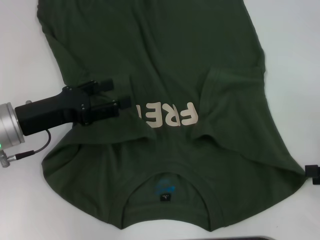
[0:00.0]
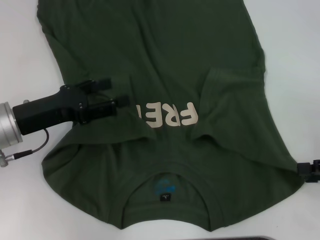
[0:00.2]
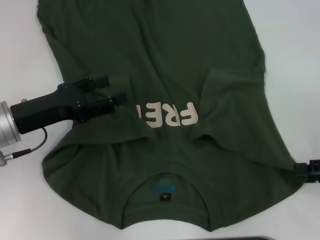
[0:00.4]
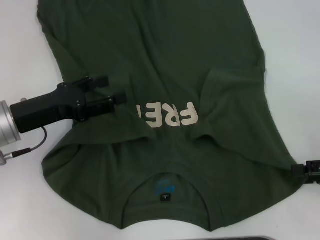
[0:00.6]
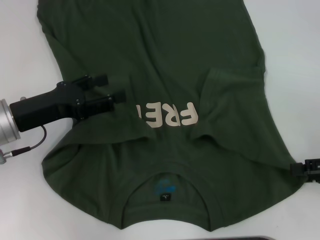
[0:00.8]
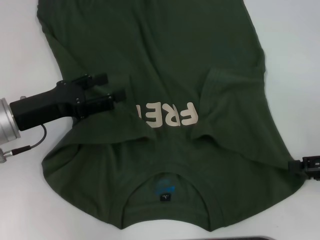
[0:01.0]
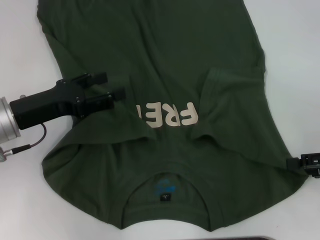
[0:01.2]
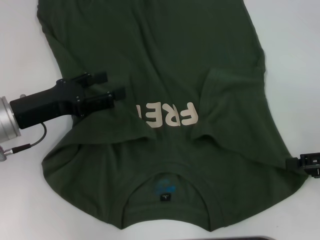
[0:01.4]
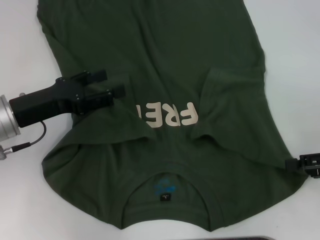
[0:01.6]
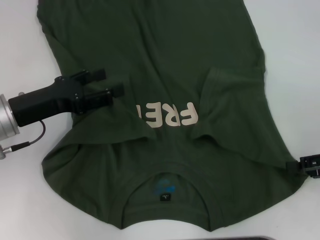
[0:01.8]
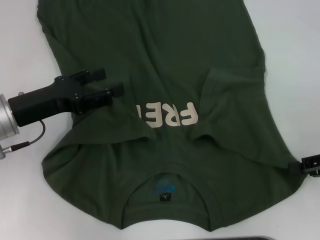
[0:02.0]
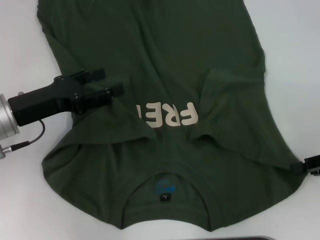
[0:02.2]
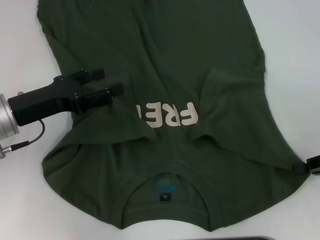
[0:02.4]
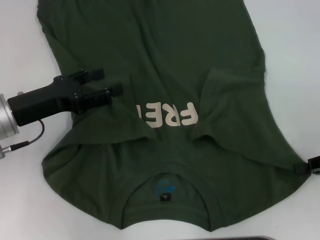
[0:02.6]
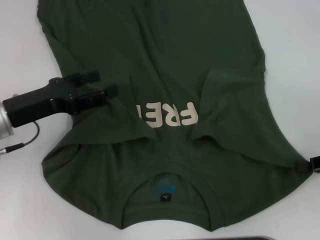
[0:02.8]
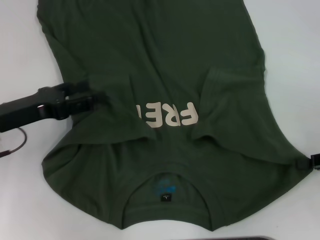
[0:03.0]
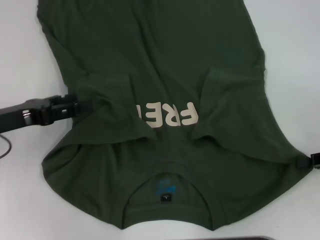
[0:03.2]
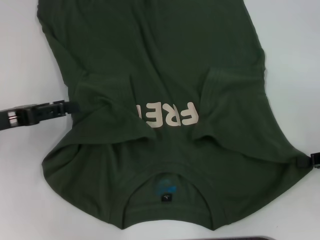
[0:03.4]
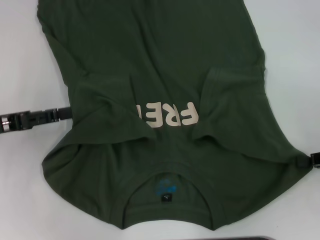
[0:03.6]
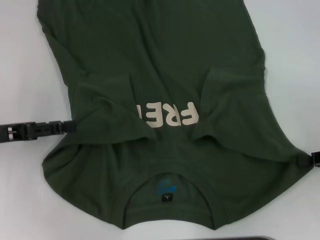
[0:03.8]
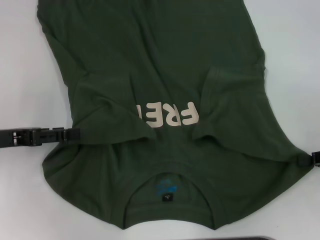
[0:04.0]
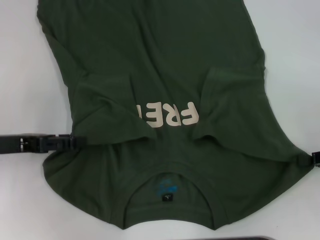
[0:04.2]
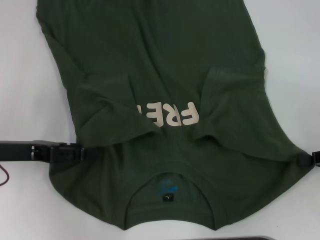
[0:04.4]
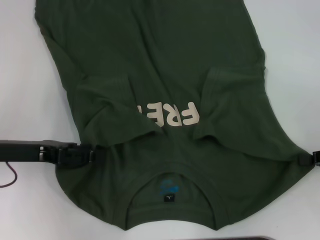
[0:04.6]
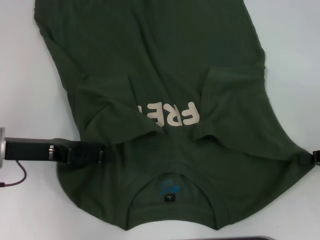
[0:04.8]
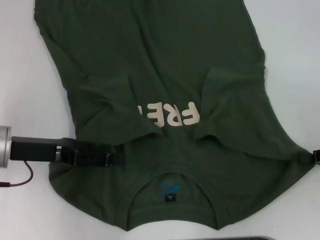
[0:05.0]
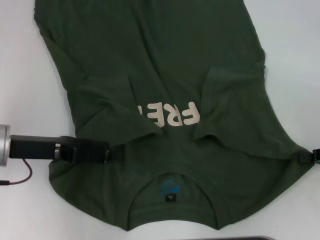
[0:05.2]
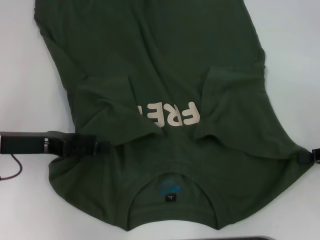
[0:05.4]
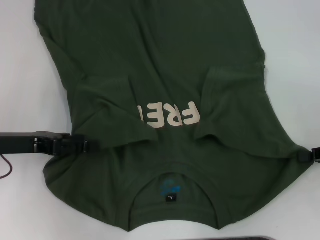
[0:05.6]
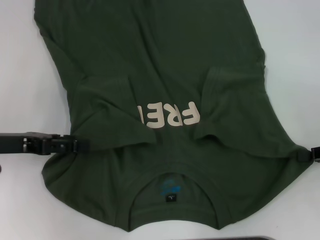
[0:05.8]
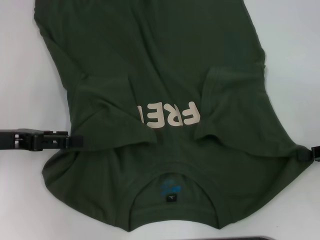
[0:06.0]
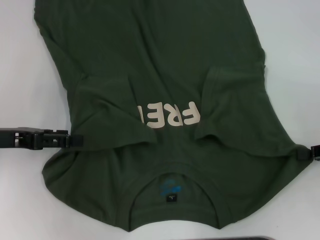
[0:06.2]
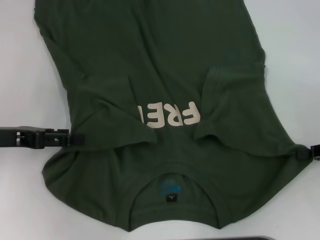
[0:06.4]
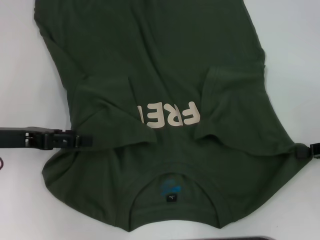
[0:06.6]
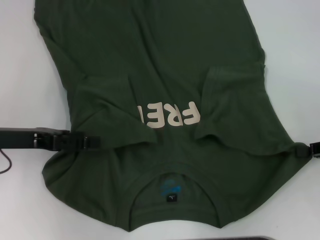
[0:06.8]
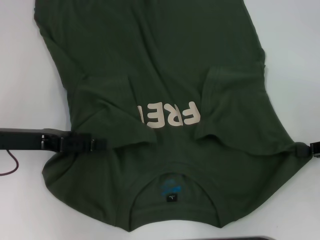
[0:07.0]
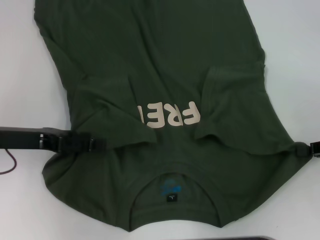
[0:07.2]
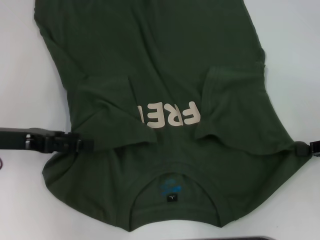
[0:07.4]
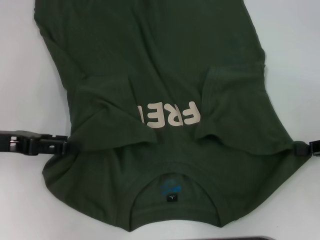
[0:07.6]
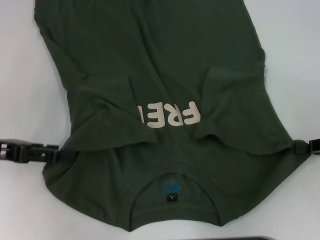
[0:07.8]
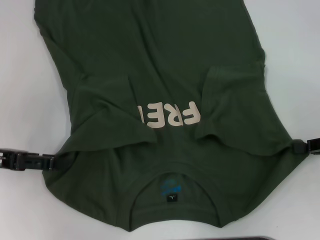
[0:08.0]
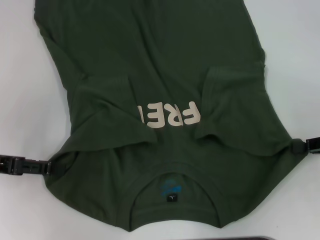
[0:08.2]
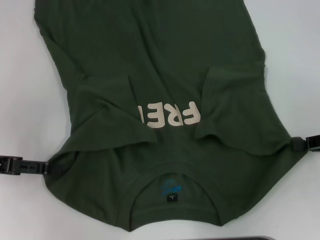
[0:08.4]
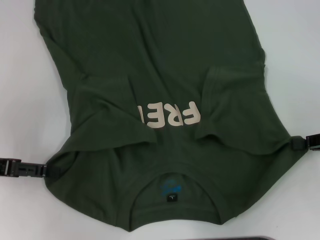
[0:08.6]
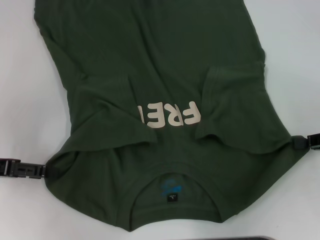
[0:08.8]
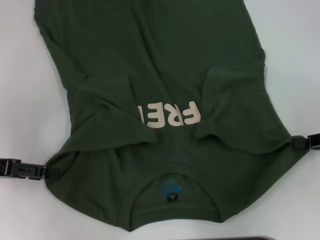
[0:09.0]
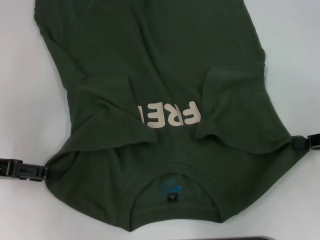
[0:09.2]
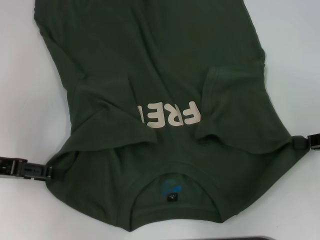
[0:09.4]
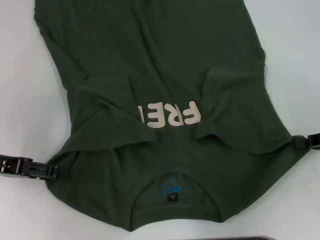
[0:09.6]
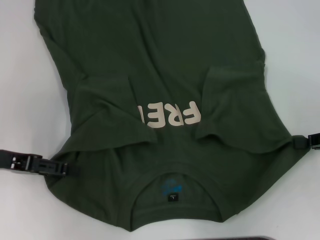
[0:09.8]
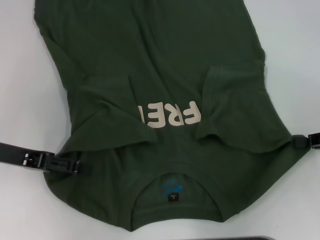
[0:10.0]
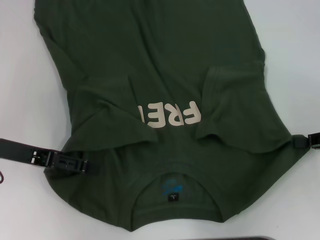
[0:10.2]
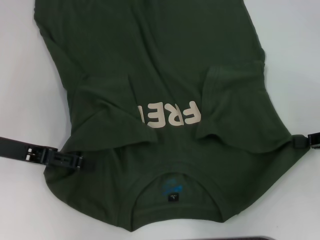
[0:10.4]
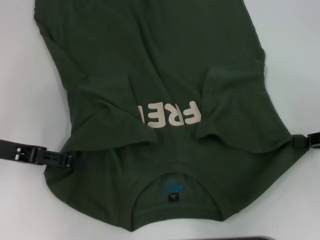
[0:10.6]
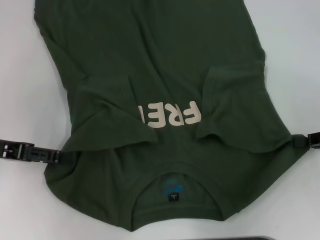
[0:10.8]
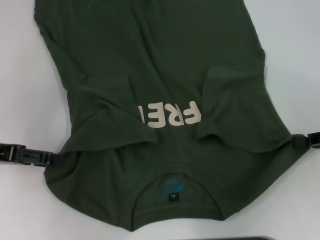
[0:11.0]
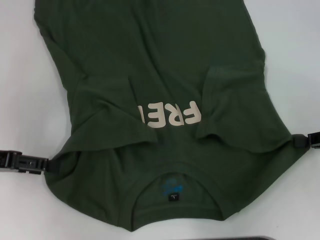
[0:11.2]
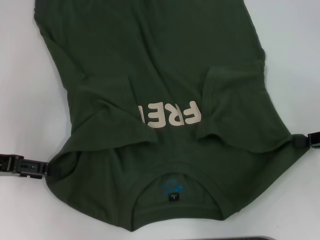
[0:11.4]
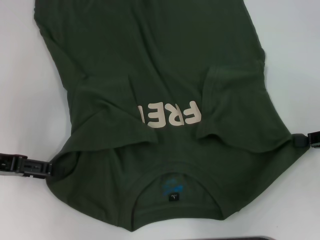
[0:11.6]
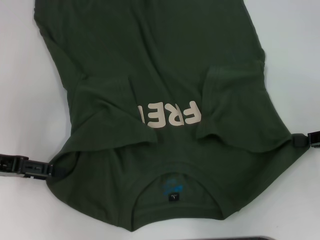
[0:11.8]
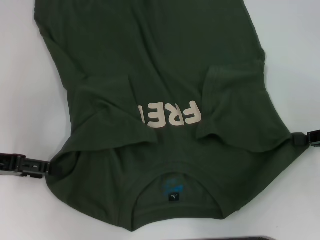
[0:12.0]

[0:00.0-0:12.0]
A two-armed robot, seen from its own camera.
Step, 0:00.0 to 0:02.4: Grab the bottom right corner with your right hand.
0:00.0 to 0:01.6: The grippers stay close to where they were, moving slightly.
0:01.6 to 0:03.0: The right gripper closes its fingers.
0:04.4 to 0:09.0: There are only small adjustments of the grippers.
0:09.0 to 0:10.4: The left gripper moves approximately 5 cm.
0:10.4 to 0:12.0: The grippers stay close to where they were, moving slightly.

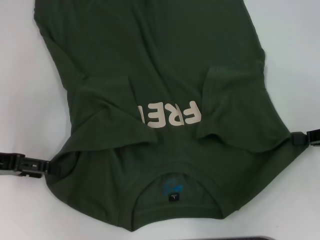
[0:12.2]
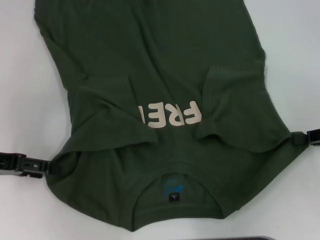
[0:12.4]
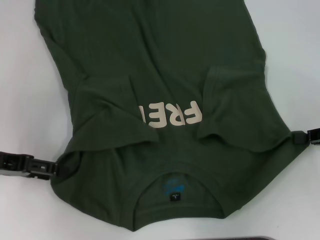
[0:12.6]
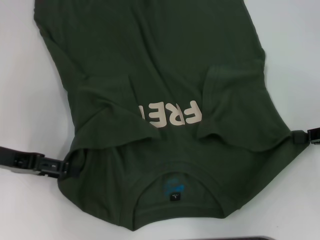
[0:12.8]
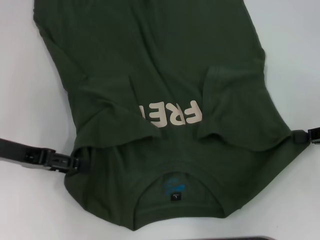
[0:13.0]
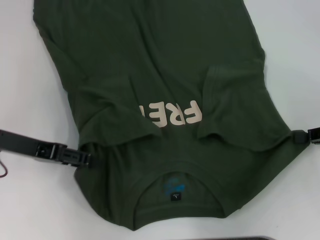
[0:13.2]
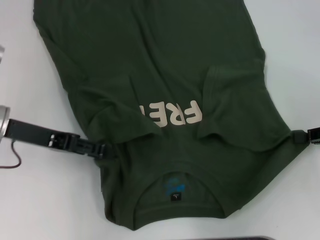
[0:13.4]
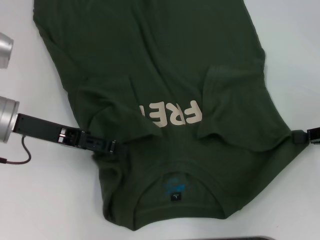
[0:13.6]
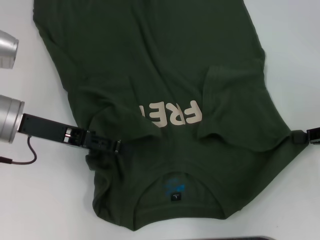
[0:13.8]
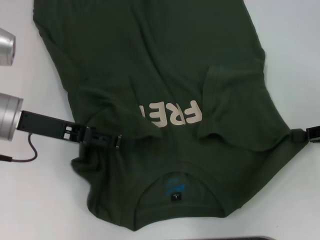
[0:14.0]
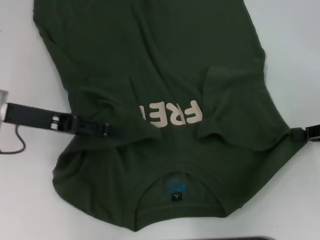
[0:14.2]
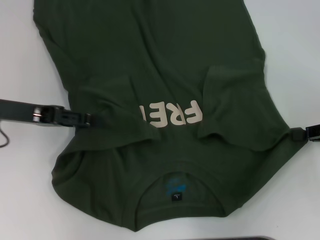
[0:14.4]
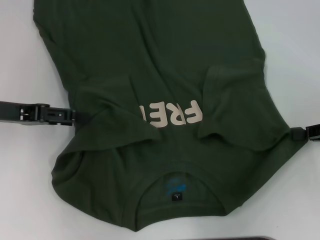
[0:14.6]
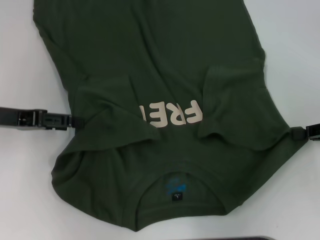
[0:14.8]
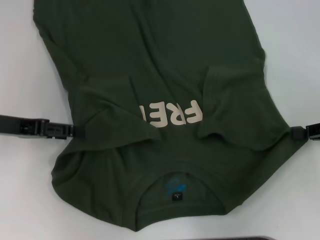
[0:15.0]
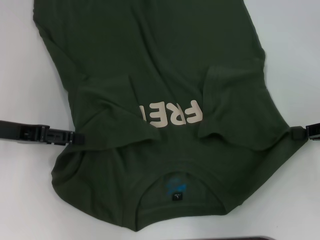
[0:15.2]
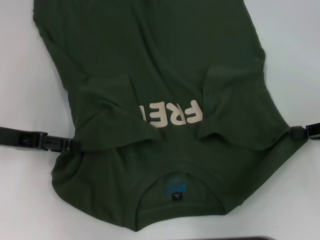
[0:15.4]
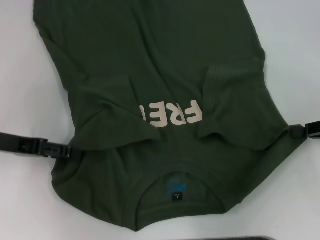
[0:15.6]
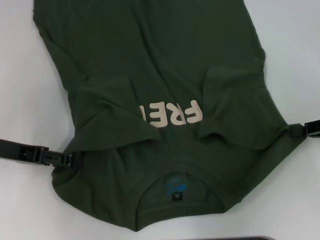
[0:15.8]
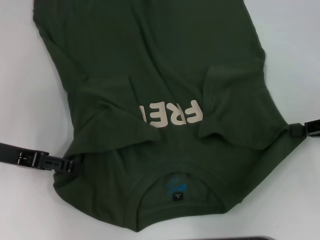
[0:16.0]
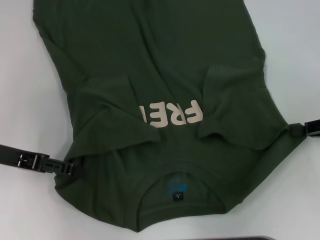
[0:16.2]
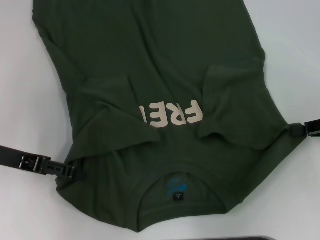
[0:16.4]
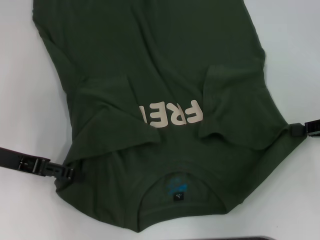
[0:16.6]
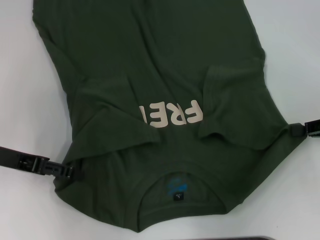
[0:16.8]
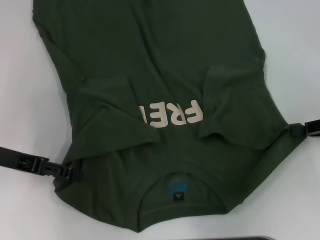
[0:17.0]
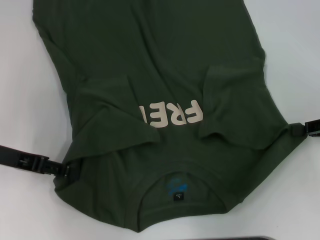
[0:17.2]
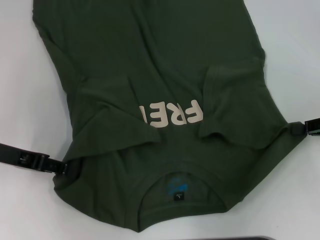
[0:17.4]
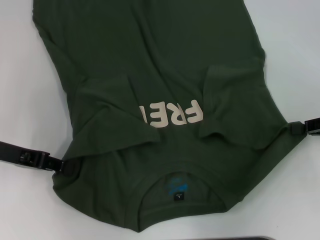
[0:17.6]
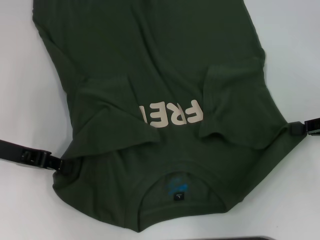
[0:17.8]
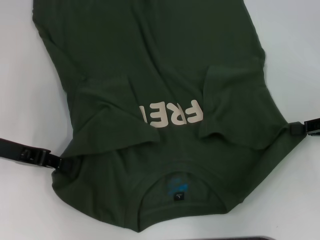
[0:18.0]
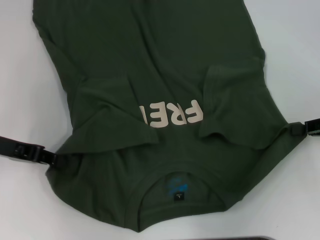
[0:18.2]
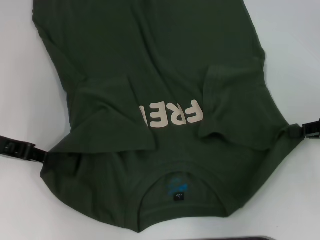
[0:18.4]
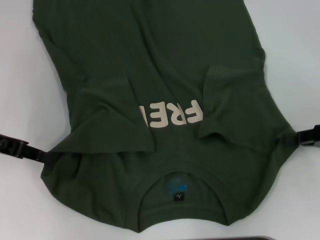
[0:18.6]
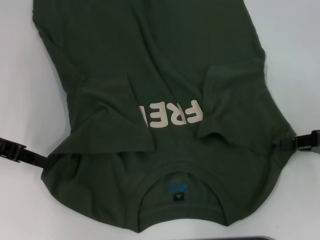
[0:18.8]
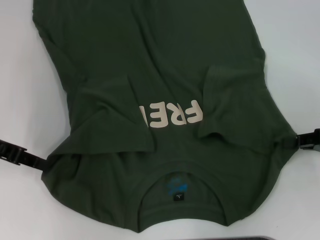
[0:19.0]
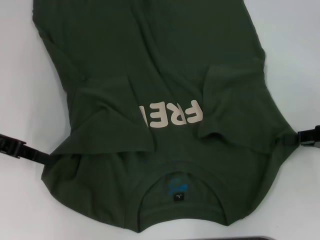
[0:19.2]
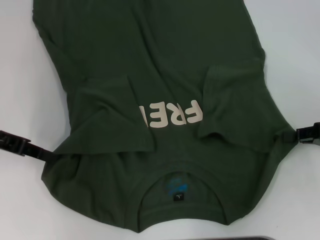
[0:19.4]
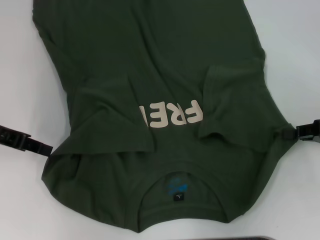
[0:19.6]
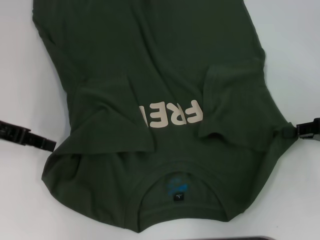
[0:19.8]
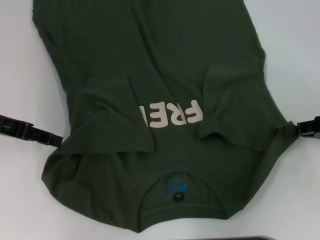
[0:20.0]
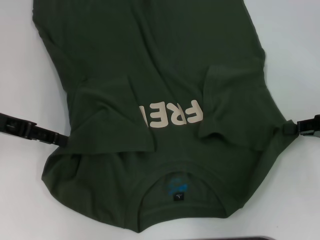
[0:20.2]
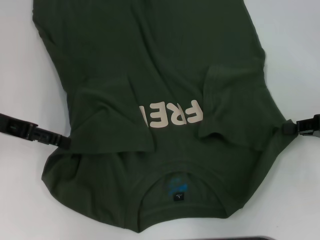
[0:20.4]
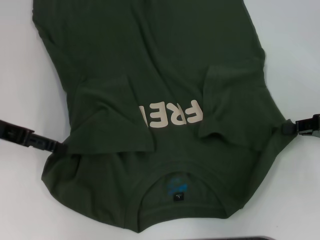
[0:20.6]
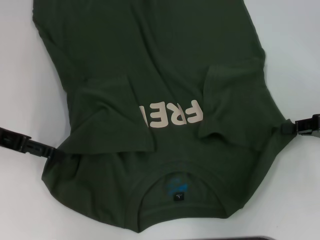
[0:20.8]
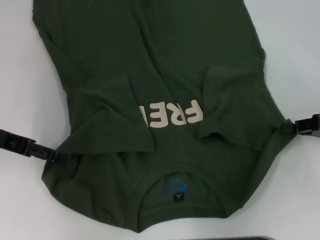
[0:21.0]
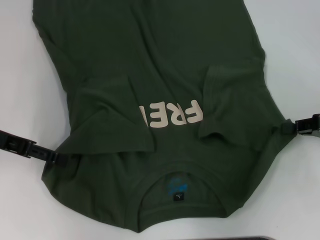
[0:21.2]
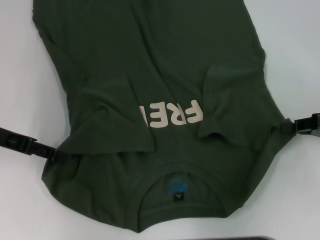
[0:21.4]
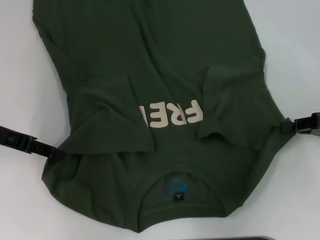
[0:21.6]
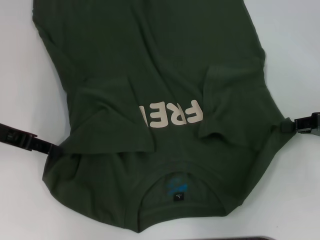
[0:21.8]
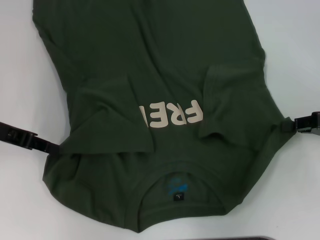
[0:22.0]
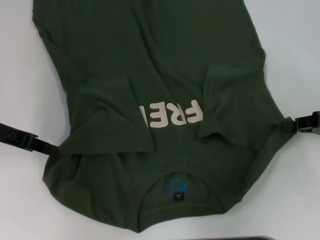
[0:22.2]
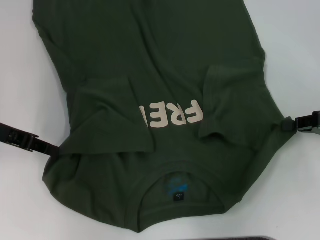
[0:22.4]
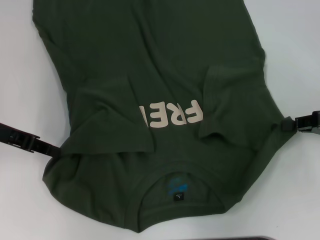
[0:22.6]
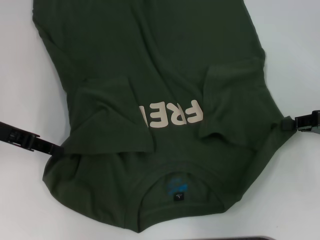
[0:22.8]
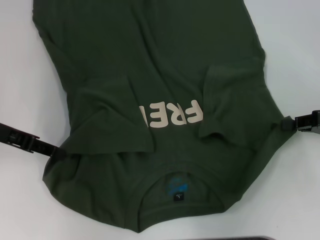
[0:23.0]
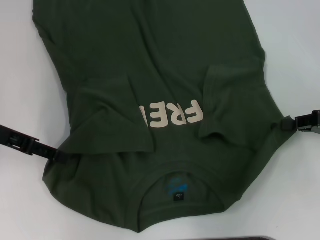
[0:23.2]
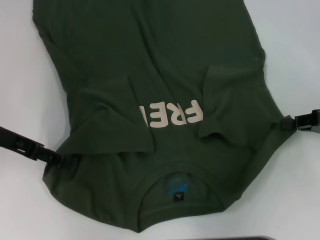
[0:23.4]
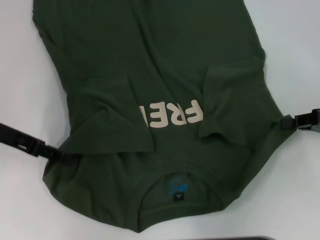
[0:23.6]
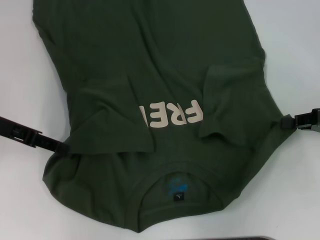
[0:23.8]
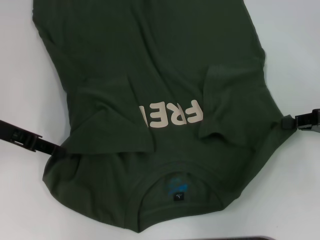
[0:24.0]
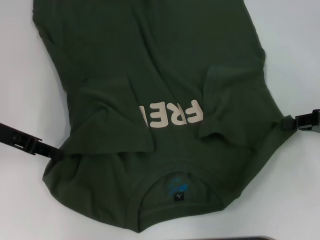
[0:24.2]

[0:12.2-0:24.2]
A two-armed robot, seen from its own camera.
0:12.2 to 0:13.8: The left gripper goes some 10 cm to the right.
0:13.8 to 0:15.2: The left gripper travels to the left by some 5 cm.
0:15.2 to 0:16.6: The grippers move only a little.
0:16.6 to 0:18.2: The left gripper closes its fingers.
0:18.2 to 0:19.8: The grippers move only a little.
0:19.8 to 0:21.2: The left gripper opens up.
0:21.2 to 0:22.6: The left gripper closes up.
